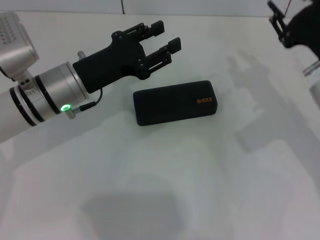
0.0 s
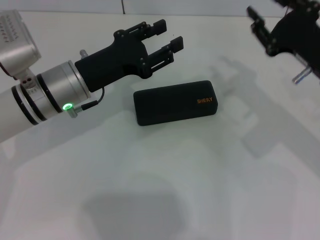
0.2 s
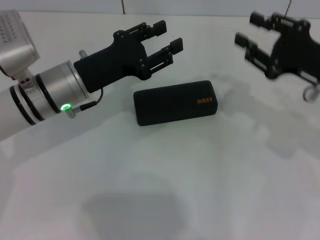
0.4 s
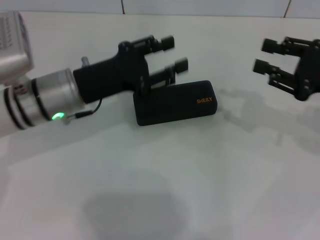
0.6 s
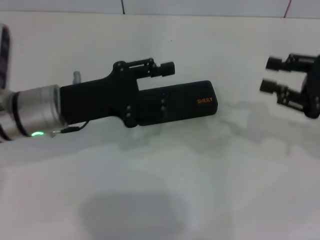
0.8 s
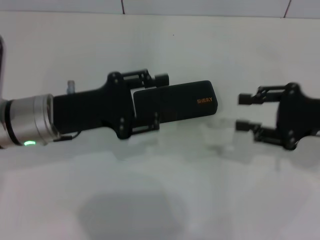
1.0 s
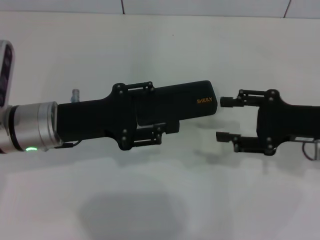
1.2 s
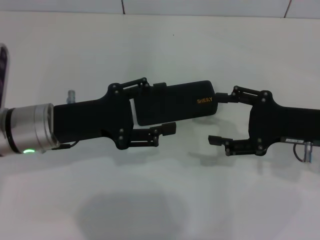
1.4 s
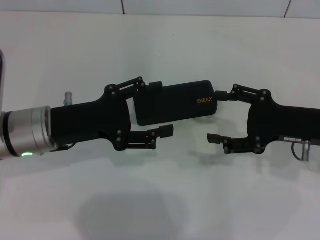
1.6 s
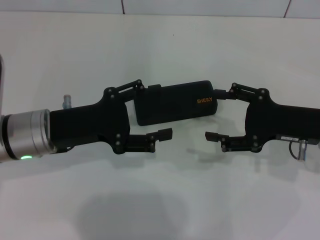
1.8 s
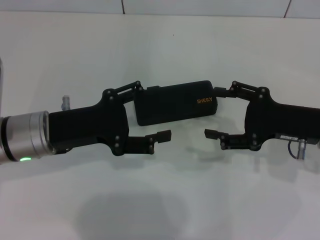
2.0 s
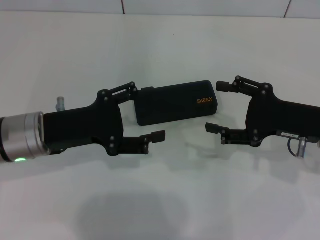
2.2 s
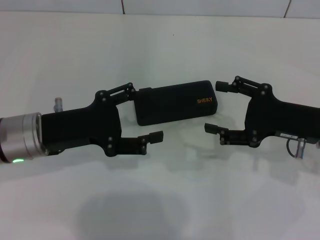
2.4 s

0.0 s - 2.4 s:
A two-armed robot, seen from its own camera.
0.0 s - 1.2 s: The left gripper ends up approximately 5 cm from where it was. The right gripper reaches some 5 cm to the right, then returns.
1.2 s - 2.4 s: The left gripper opens its fingers. The right gripper opens.
